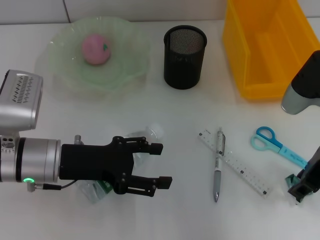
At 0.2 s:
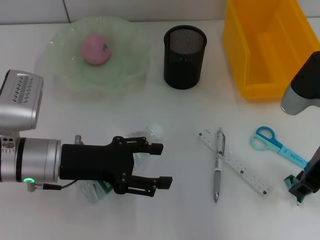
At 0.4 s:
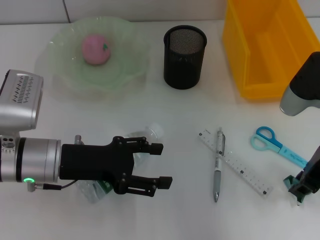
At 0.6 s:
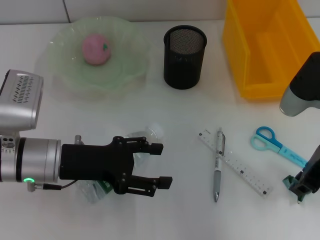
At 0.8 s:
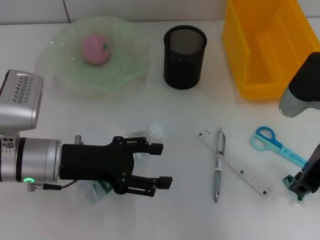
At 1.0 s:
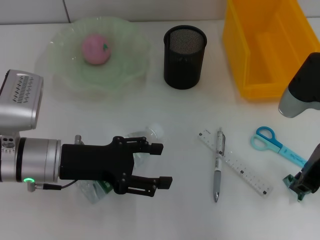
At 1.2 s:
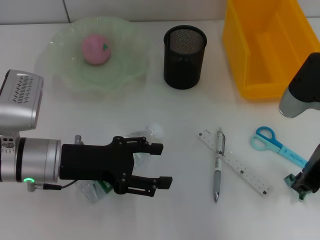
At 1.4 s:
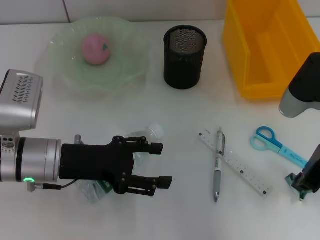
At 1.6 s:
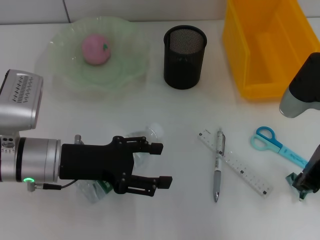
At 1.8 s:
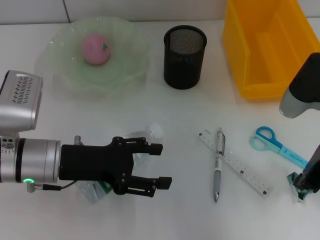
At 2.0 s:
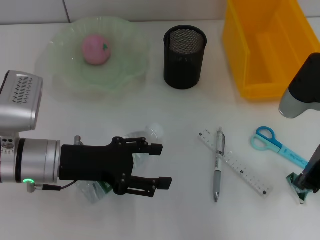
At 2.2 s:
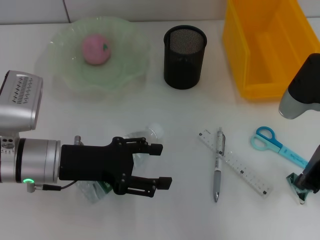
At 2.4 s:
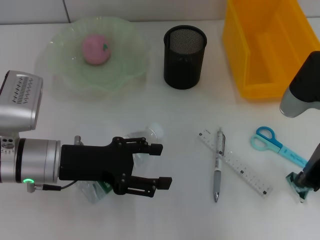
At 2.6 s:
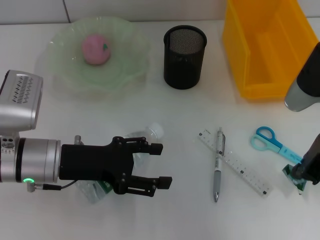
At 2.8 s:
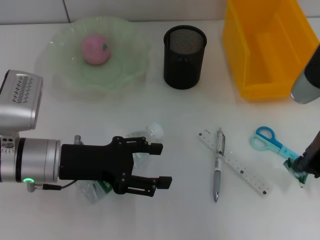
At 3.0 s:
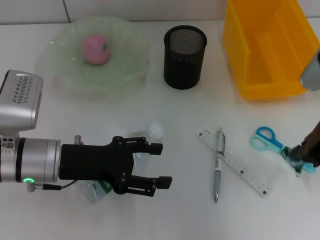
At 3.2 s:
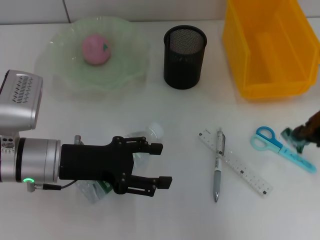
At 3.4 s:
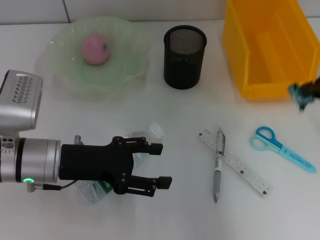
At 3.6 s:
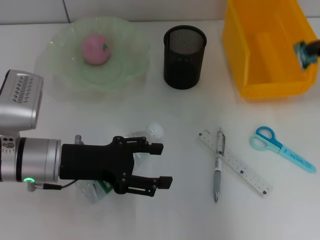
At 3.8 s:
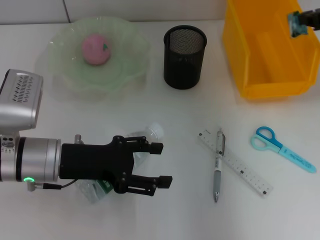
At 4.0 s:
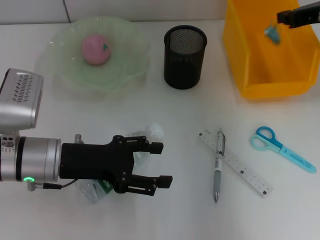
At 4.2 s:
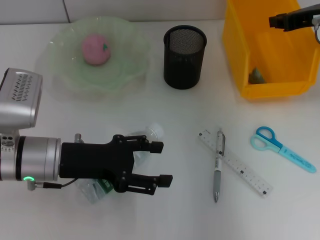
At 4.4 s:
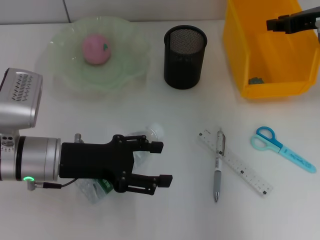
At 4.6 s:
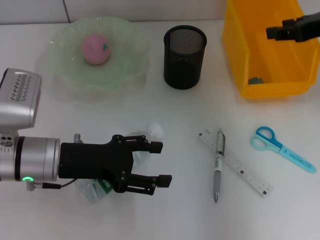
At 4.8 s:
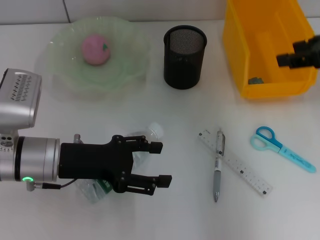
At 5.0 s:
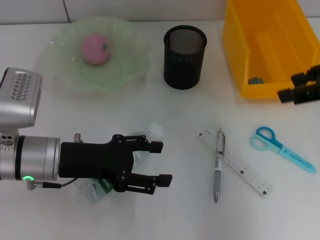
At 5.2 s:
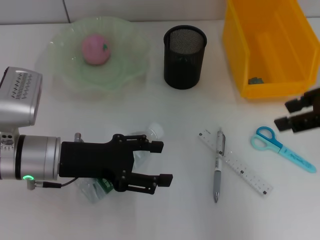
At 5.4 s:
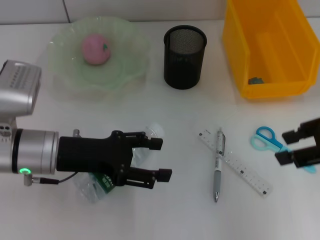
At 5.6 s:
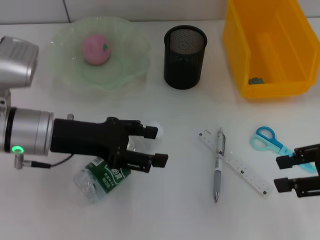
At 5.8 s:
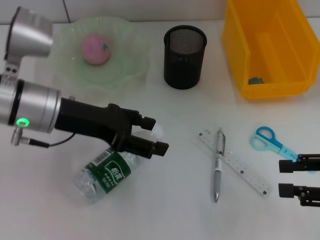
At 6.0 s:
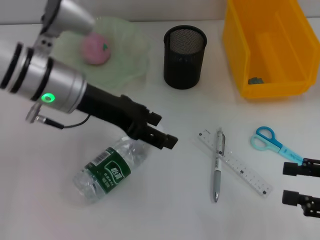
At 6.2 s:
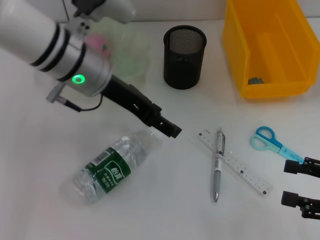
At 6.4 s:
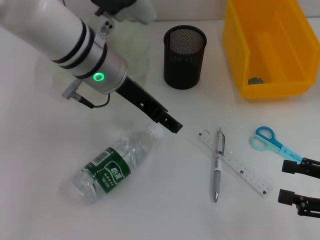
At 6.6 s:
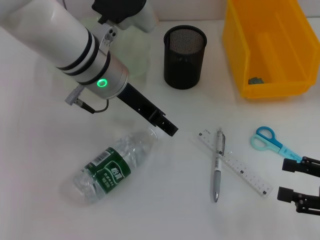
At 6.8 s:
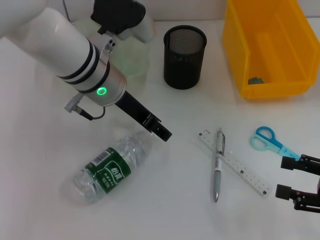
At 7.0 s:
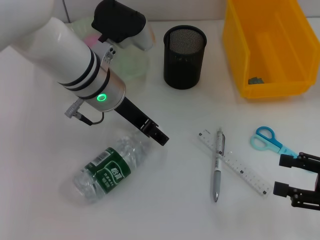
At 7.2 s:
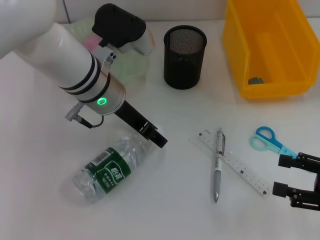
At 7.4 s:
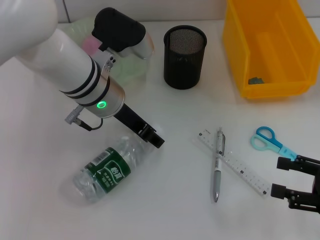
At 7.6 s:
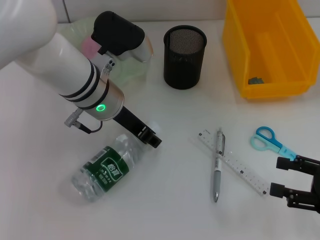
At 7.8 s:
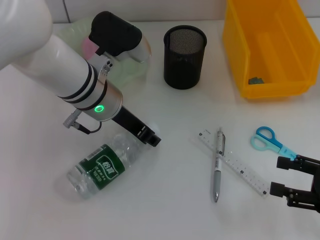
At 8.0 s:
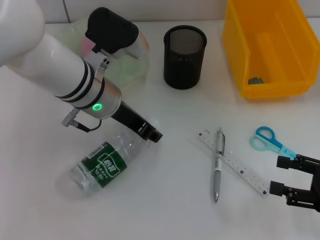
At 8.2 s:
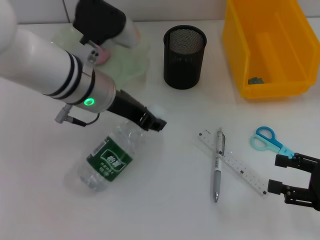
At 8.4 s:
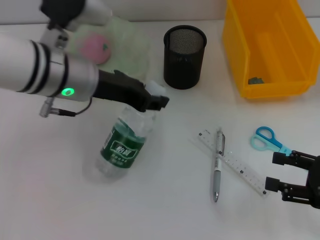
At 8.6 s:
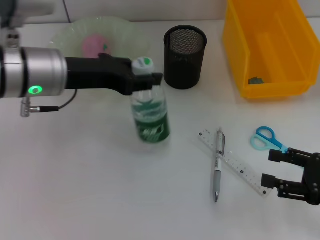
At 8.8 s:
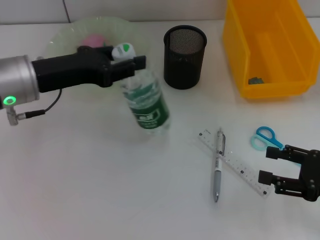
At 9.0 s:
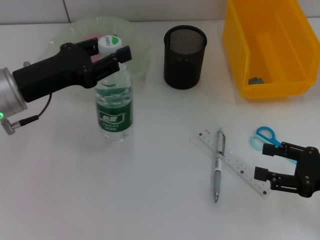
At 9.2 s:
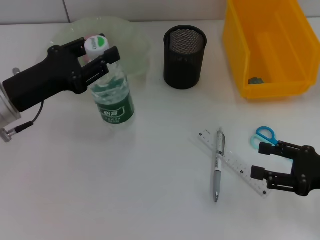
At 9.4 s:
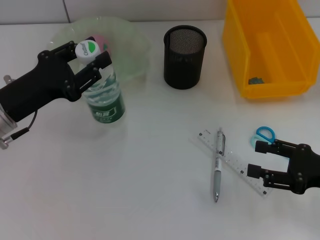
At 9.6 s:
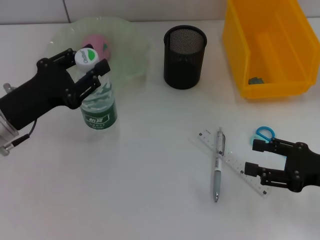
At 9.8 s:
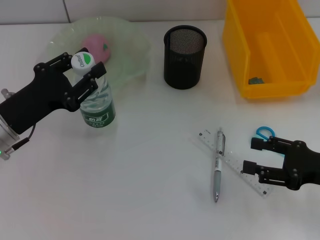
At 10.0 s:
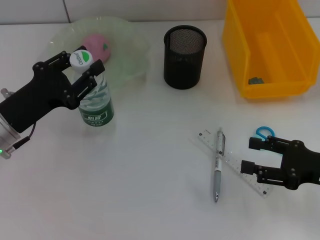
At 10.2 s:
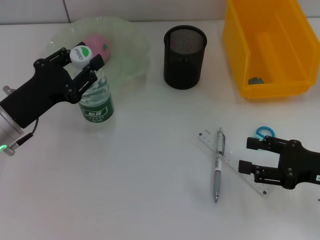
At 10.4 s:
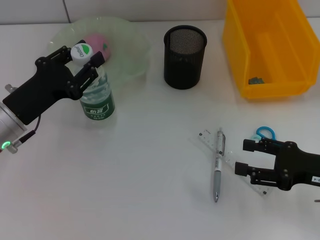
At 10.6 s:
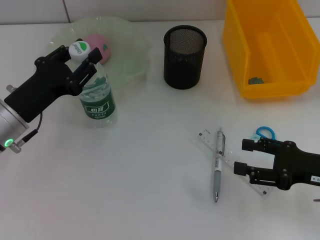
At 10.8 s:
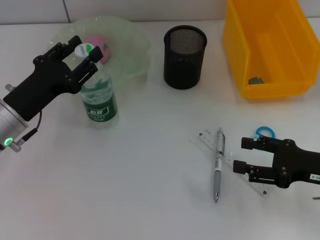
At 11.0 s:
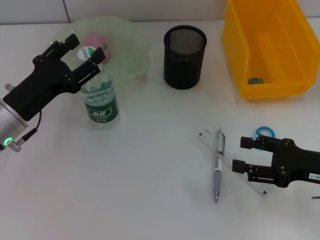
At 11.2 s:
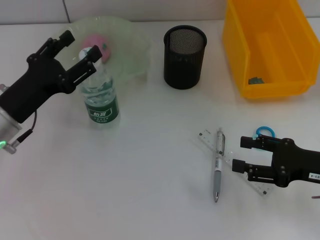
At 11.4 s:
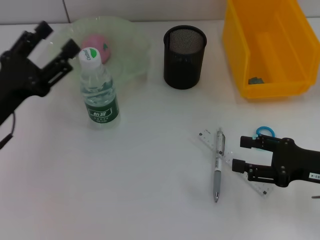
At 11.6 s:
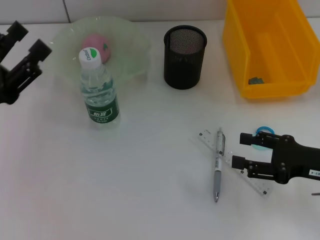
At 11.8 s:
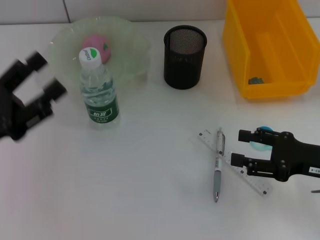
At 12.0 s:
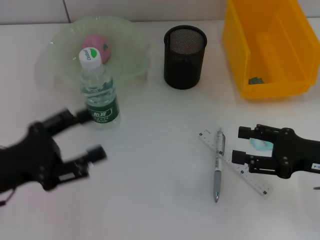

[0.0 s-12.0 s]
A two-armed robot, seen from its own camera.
Step, 0.0 to 2.2 s: Grab the plastic with the right hand.
Step, 2.4 to 4.2 s: Place the plastic into the trash can with the right hand.
Step, 4.4 to 7.6 s: Grab the water bottle with the left hand.
Step, 7.8 to 11.0 s: Place the water bottle on the table with the left hand.
0.0 to 1.6 s: The right gripper closes up.
1.6 to 3.0 s: The grippers stay close to where they were, moving slightly.
3.0 to 4.4 s: The right gripper shifts roughly 10 cm forward.
4.4 to 6.0 s: The right gripper travels backward and downward by approximately 25 cm, and opens; the left gripper moves upward, forward and to the right, about 15 cm.
6.0 to 7.6 s: The left gripper shifts by about 5 cm.
7.6 to 9.0 s: The left gripper heads to the left, covering approximately 15 cm.
9.0 to 10.4 s: The left gripper goes roughly 5 cm downward.
10.4 to 12.0 s: The left gripper moves backward, some 5 cm, and opens.

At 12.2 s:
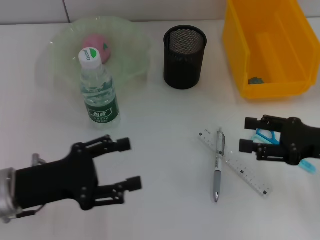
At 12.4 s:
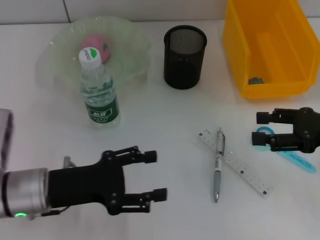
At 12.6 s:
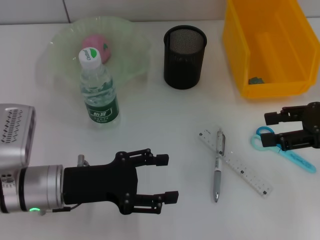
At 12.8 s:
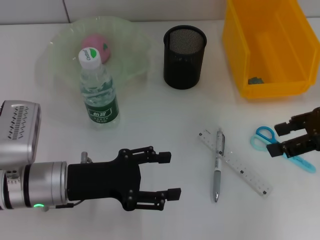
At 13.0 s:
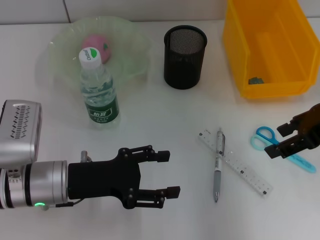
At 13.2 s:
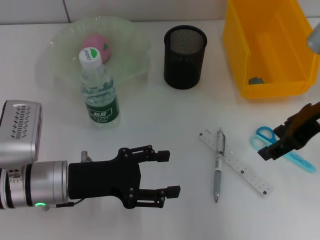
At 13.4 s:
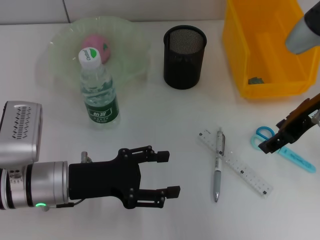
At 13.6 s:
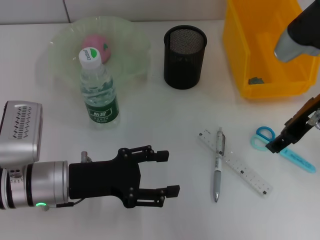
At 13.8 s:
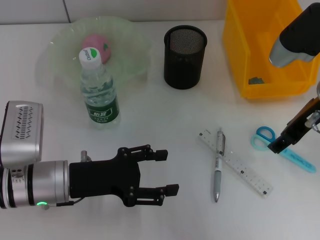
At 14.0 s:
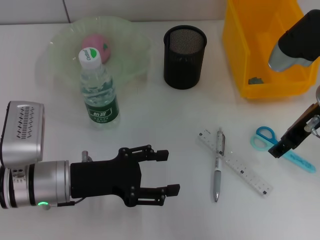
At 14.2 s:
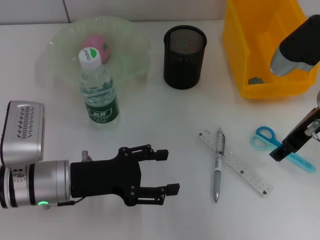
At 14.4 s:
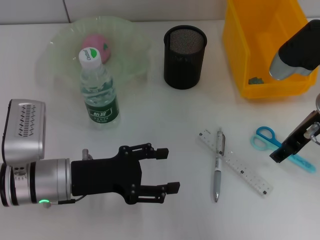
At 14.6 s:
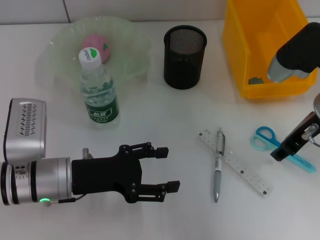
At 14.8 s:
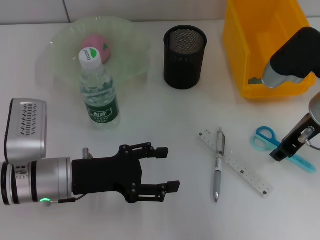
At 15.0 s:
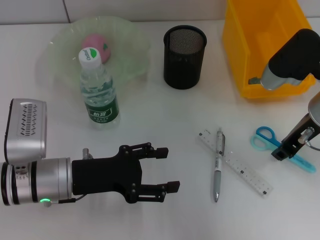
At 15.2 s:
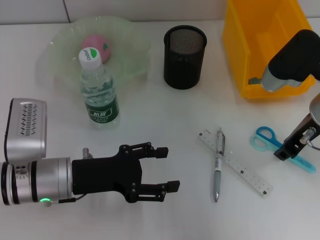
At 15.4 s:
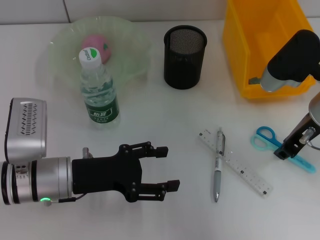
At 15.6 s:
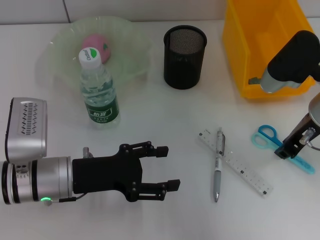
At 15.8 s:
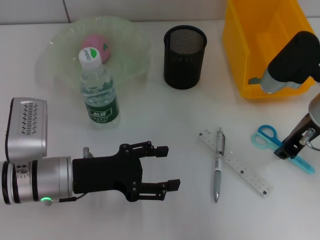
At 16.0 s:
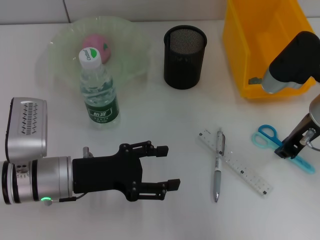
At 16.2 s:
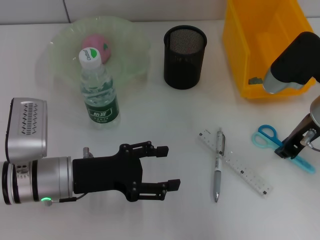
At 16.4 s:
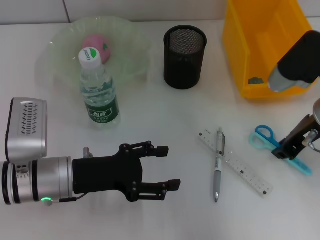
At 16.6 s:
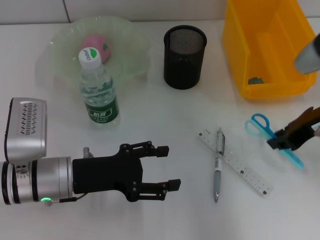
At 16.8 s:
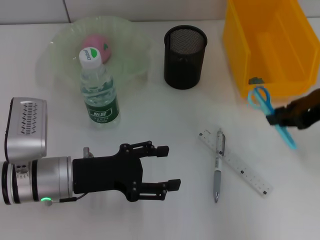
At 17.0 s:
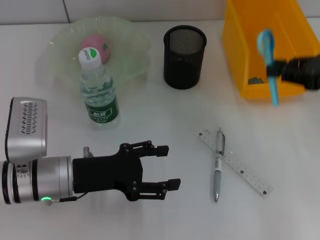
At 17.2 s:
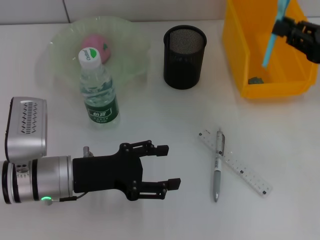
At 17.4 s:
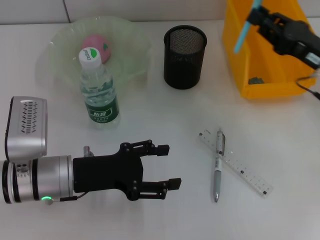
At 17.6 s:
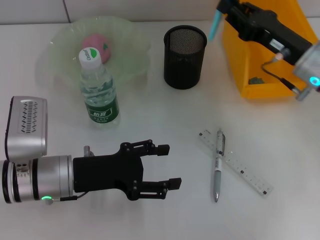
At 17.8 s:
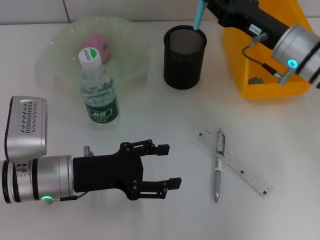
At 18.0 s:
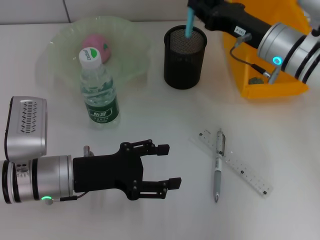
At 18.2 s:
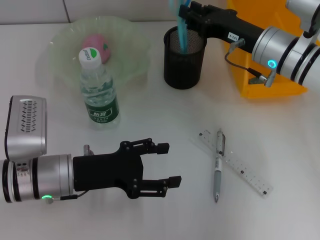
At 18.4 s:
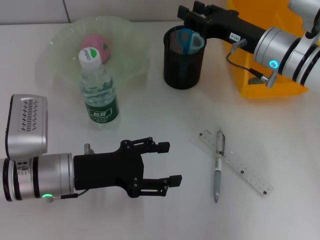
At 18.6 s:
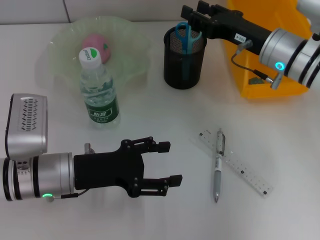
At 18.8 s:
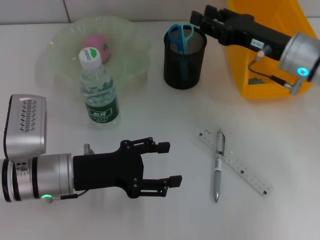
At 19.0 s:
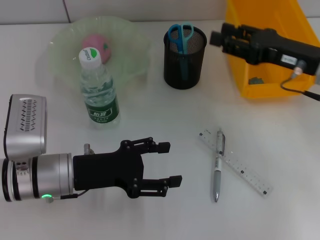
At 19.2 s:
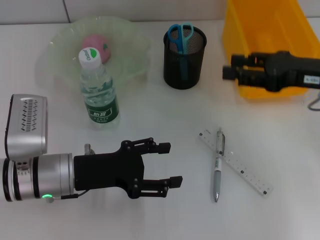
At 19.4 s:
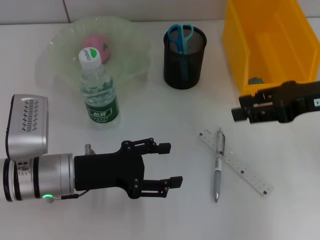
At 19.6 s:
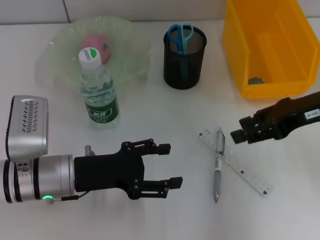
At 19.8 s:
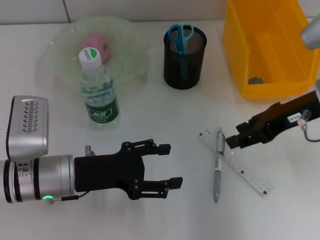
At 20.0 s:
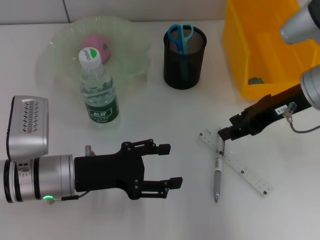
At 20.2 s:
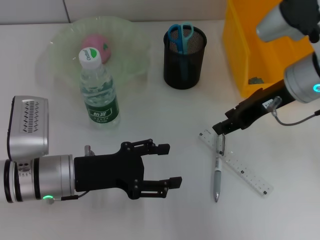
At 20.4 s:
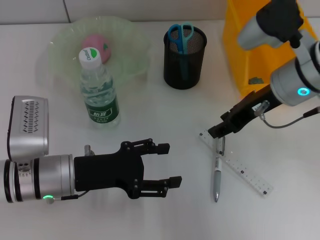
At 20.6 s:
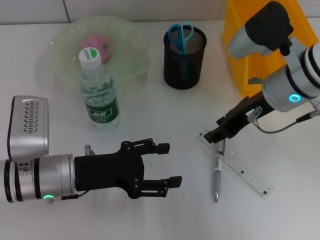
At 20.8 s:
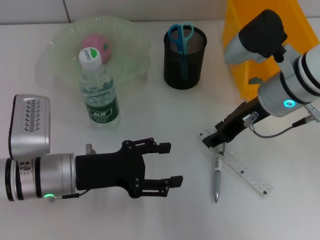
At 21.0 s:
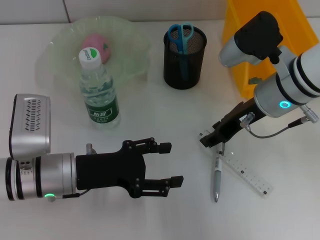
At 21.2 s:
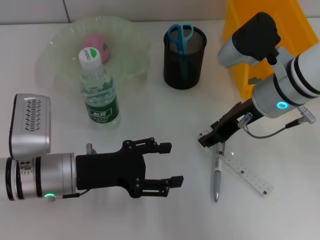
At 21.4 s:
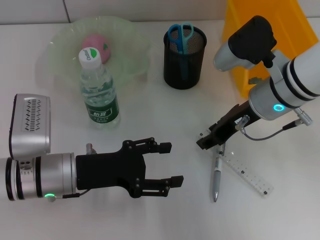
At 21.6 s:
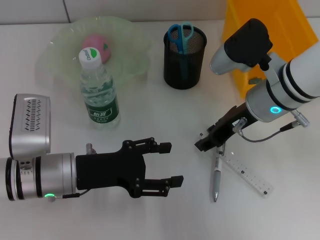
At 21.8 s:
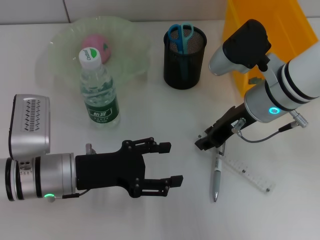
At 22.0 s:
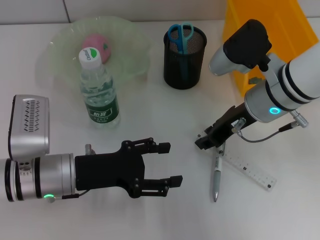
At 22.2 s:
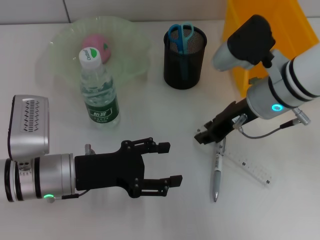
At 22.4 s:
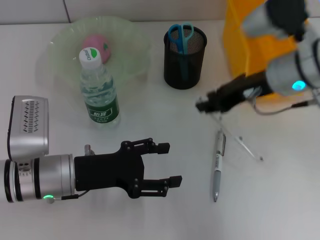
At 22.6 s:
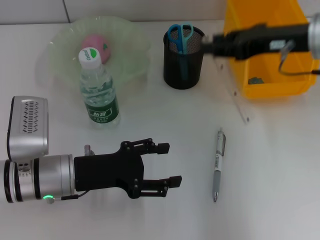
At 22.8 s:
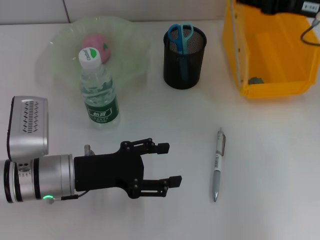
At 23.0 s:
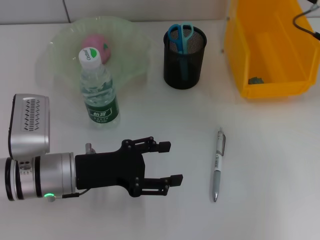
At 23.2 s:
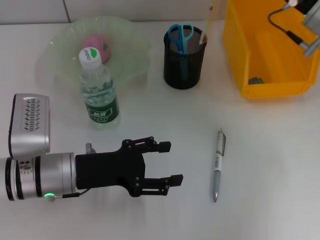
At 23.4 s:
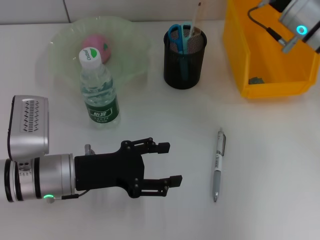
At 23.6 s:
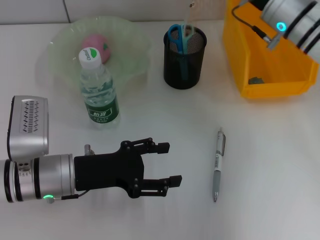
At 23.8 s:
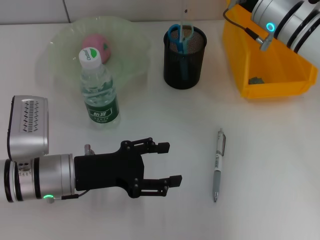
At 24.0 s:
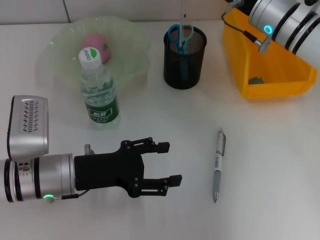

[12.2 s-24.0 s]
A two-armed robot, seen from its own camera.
Step, 12.2 to 16.0 s: Grab the blue scissors with the right hand.
Step, 16.2 to 18.6 s: Place the blue scissors into the pen holder with the right hand.
Step, 18.8 to 21.6 s: Grab the ruler with the right hand.
12.2 to 13.6 s: The left gripper moves to the right, some 5 cm. The right gripper travels upward, to the left and forward by some 15 cm.
13.6 to 15.2 s: The right gripper closes.
15.2 to 16.6 s: The grippers make only small movements.
16.6 to 18.2 s: The right gripper travels forward, to the left and downward by some 10 cm.
18.2 to 19.6 s: The right gripper moves backward, to the right and upward, some 15 cm, and opens.
19.6 to 21.0 s: The right gripper travels to the left by roughly 10 cm.
21.0 to 22.6 s: The right gripper travels upward and to the right by roughly 10 cm.
22.6 to 24.0 s: The right gripper heads forward and downward, covering about 10 cm.
